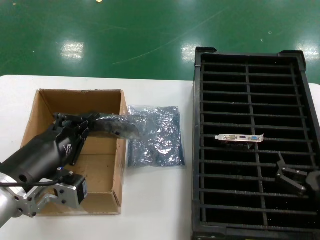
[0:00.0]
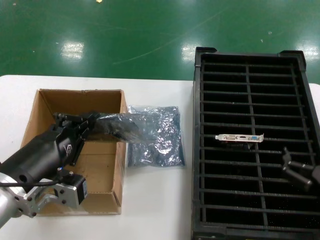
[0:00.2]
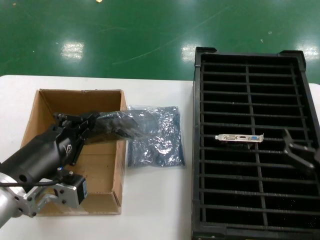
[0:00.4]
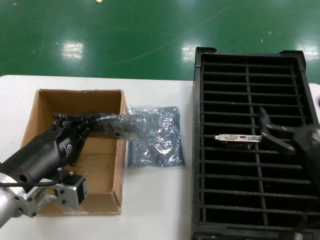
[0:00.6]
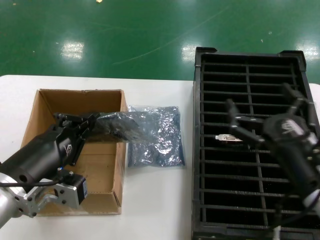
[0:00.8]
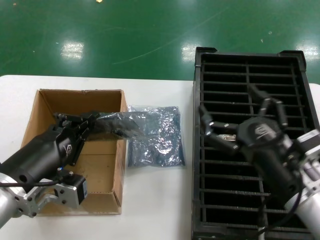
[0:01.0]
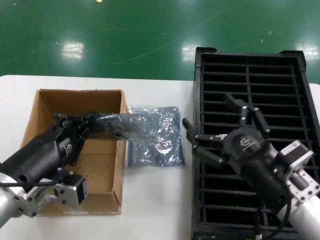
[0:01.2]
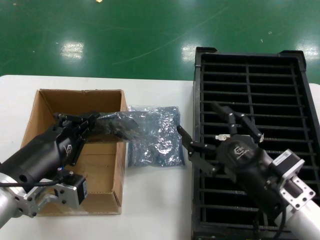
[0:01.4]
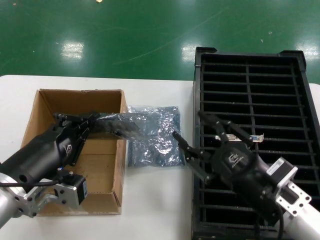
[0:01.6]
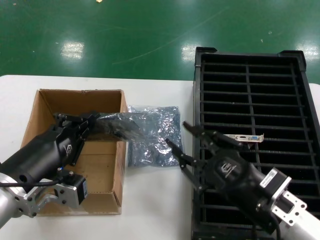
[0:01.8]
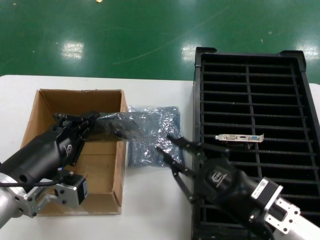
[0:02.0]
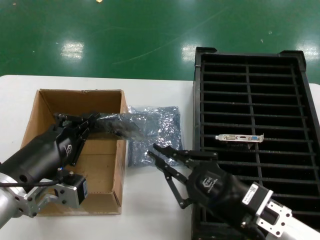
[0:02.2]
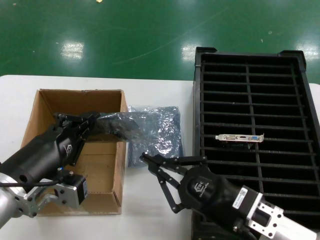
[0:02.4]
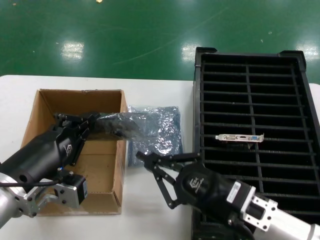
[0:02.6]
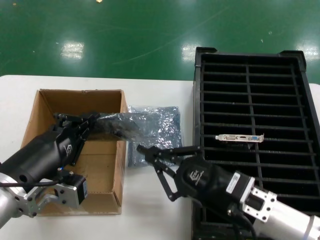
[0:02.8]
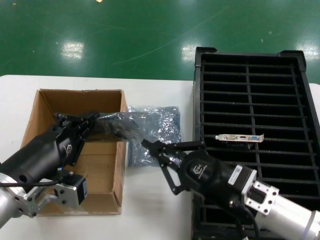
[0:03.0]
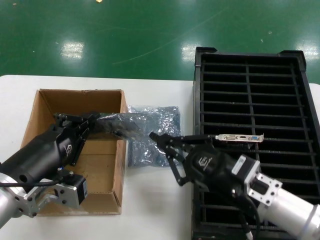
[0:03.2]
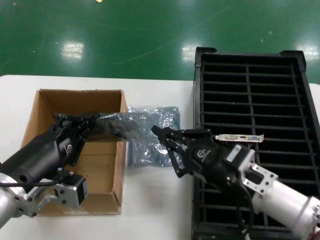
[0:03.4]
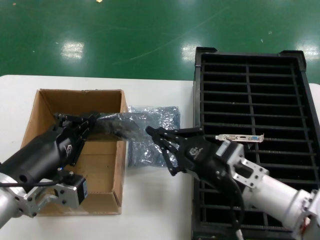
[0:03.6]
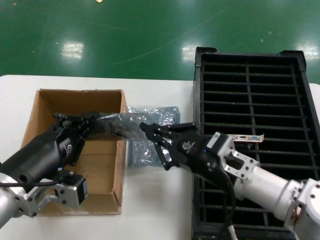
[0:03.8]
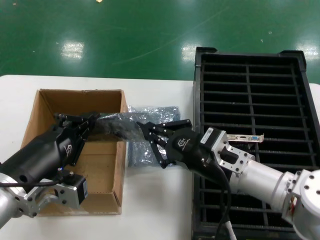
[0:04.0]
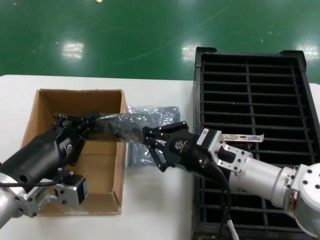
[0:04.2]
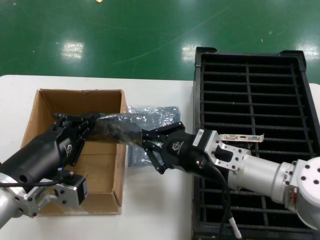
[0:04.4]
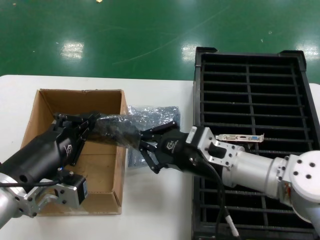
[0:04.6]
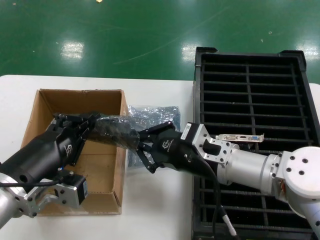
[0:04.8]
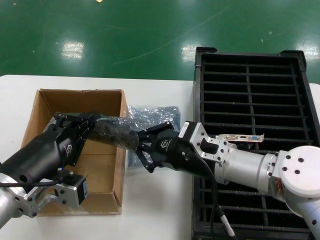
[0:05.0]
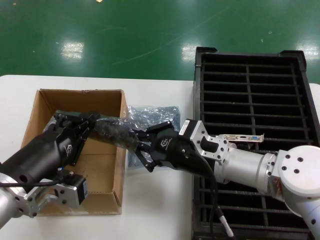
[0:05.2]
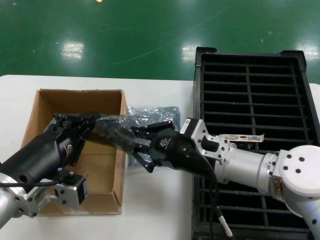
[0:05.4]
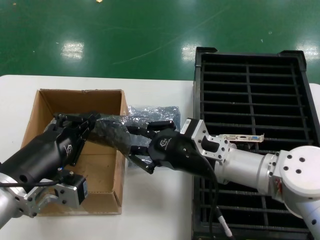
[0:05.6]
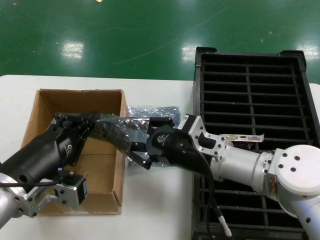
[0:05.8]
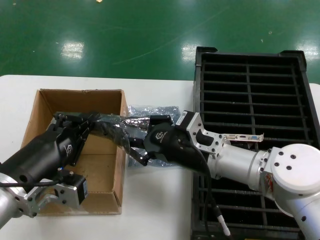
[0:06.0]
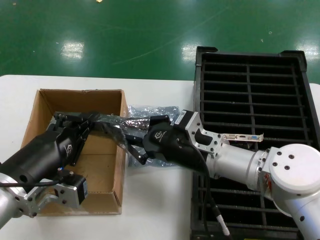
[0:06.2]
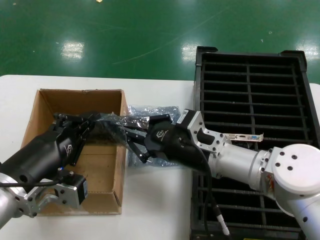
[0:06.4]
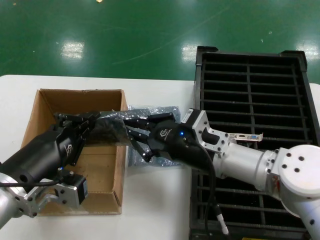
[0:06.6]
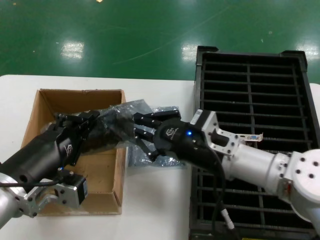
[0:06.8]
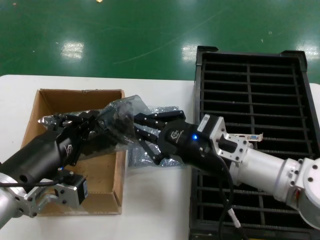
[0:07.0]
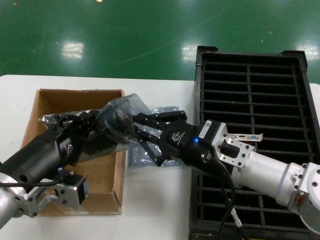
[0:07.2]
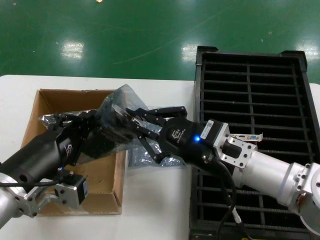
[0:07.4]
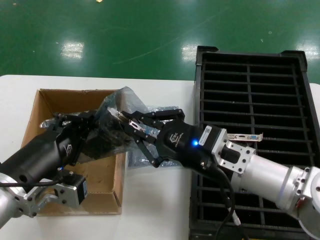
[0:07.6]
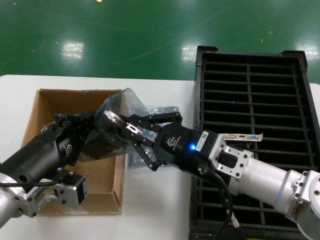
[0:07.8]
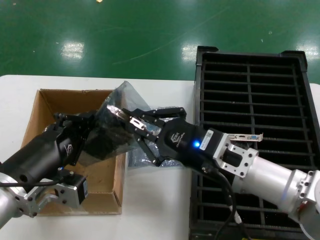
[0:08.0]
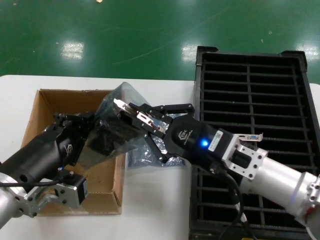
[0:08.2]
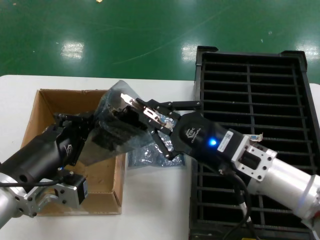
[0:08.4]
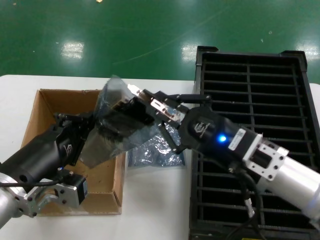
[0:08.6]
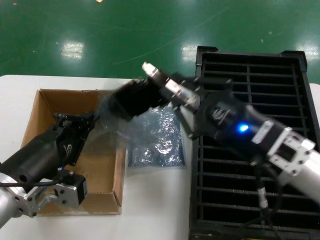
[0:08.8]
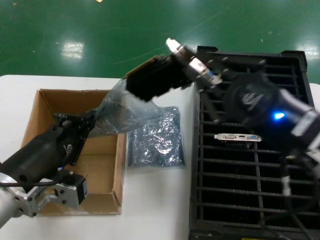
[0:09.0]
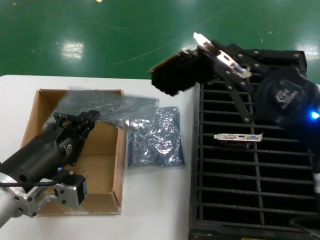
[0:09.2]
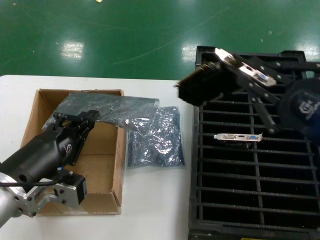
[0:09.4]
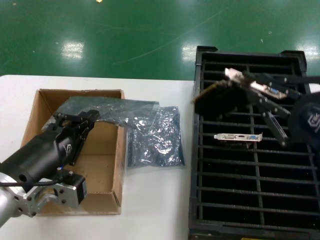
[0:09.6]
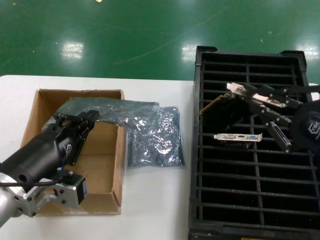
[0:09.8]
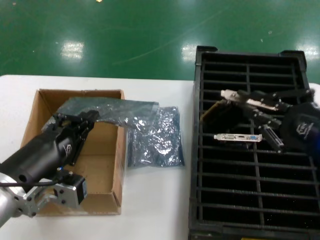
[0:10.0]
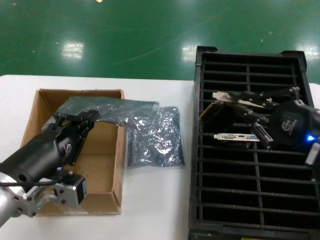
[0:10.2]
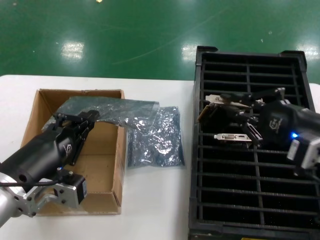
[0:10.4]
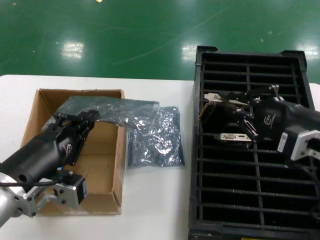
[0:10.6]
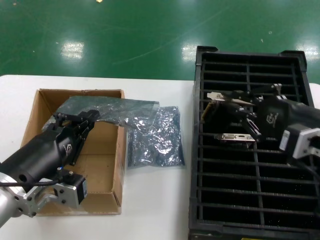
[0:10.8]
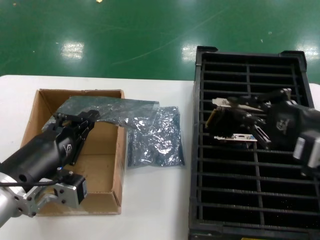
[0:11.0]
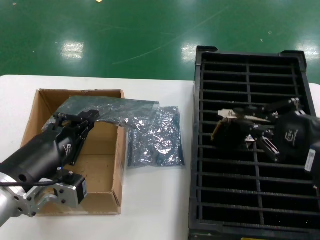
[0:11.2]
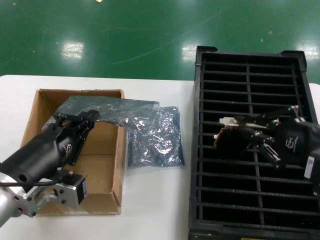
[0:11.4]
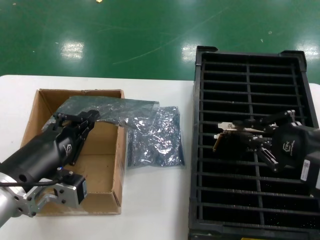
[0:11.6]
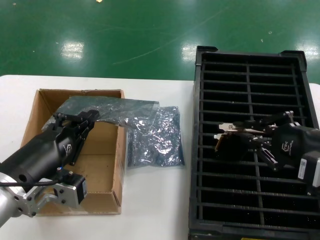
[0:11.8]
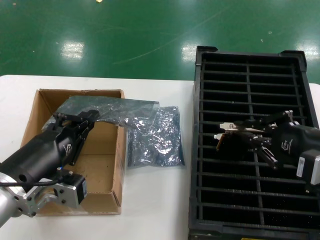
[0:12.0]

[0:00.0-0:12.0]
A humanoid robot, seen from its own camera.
Task of the whole recording: take out graphics card from box remove packaging put into black container.
Step, 0:00.2 to 0:09.0: Take out the hard disk of the bag.
0:00.0 to 0:01.6: The right hand goes roughly 5 cm to the left.
0:01.6 to 0:03.0: The hands move only a little.
0:03.0 to 0:04.4: The right hand moves forward, about 5 cm.
0:04.4 to 0:06.0: The hands make only small movements.
0:06.0 to 0:07.6: The right hand shifts by some 5 cm.
0:07.6 to 0:09.0: The right hand goes roughly 10 cm to the right, upward and backward.
0:09.0 to 0:10.4: The right hand heads to the right, covering approximately 5 cm.
0:10.4 to 0:12.0: The hands stay close to where they were, moving slightly.

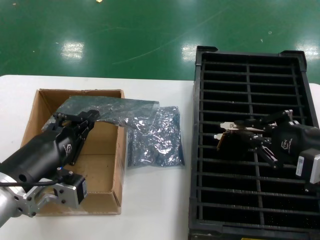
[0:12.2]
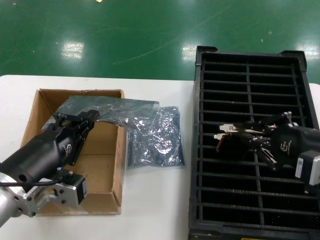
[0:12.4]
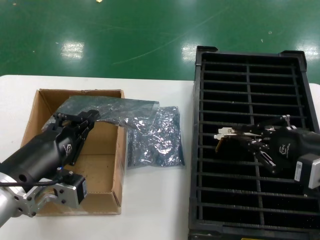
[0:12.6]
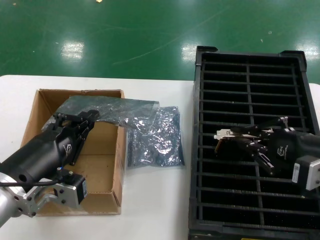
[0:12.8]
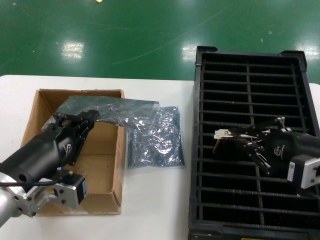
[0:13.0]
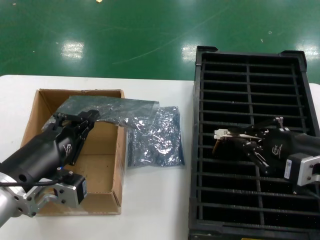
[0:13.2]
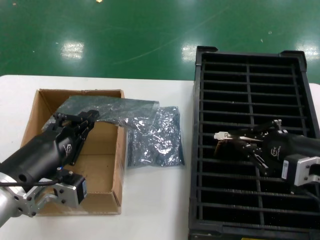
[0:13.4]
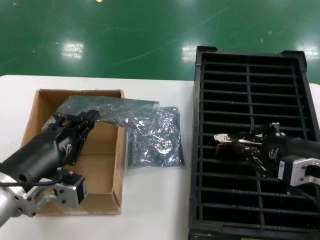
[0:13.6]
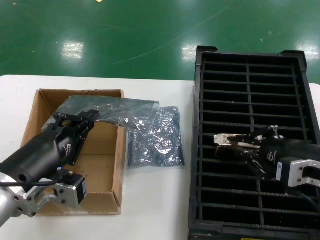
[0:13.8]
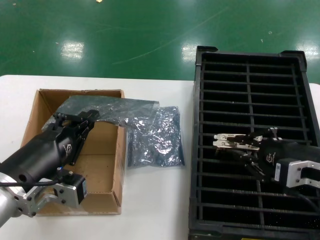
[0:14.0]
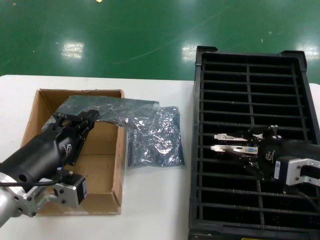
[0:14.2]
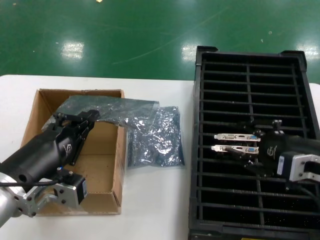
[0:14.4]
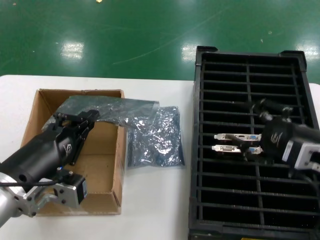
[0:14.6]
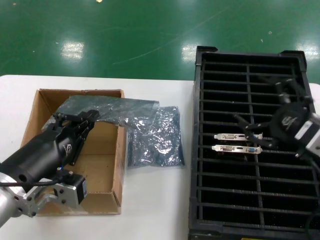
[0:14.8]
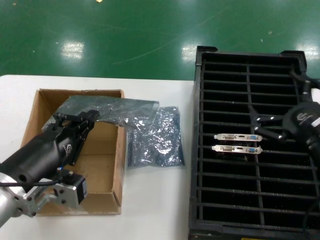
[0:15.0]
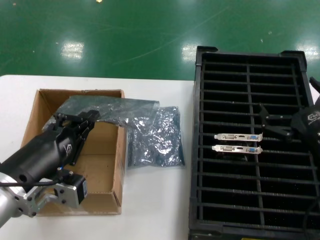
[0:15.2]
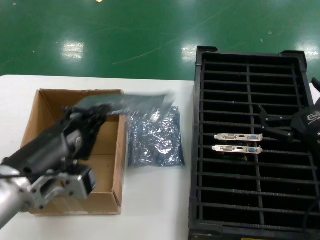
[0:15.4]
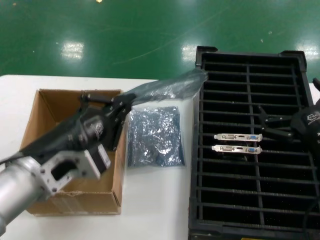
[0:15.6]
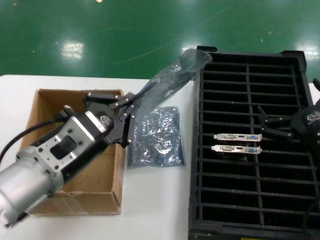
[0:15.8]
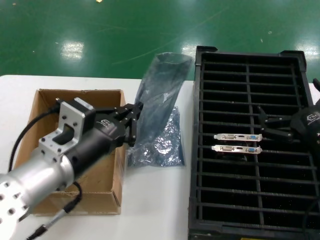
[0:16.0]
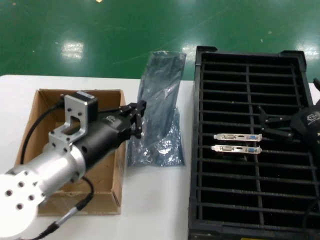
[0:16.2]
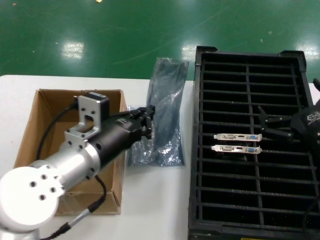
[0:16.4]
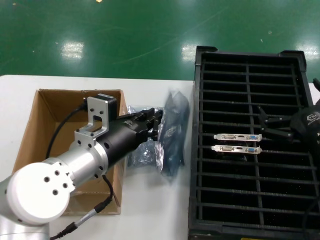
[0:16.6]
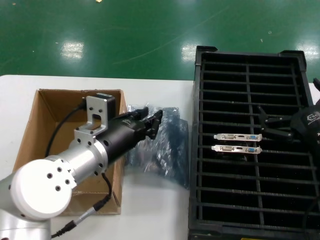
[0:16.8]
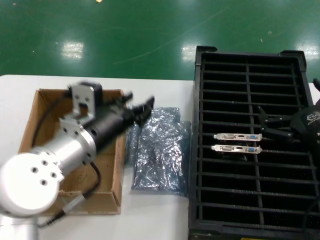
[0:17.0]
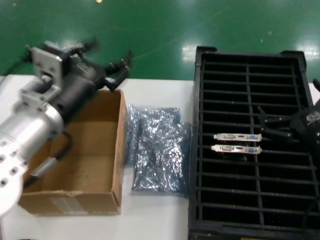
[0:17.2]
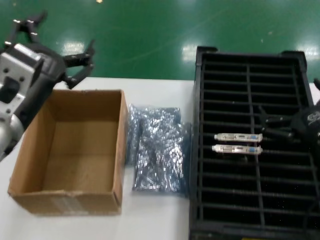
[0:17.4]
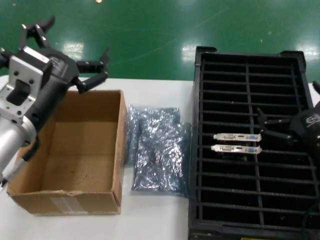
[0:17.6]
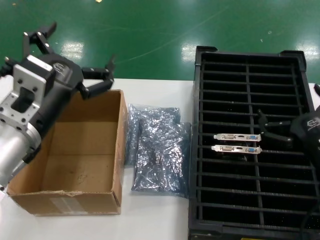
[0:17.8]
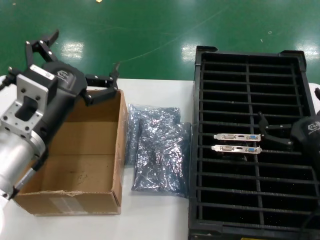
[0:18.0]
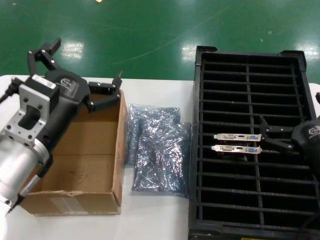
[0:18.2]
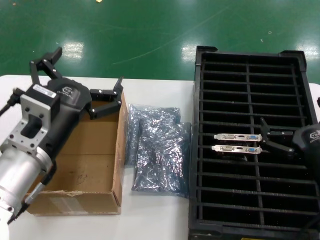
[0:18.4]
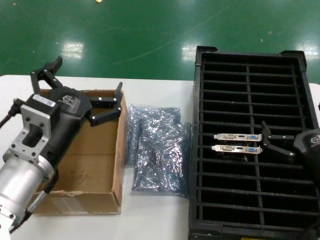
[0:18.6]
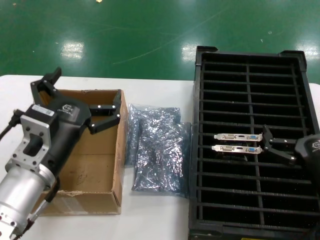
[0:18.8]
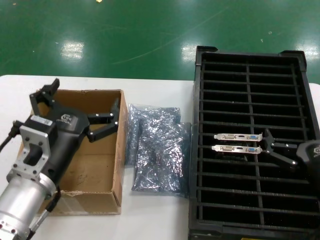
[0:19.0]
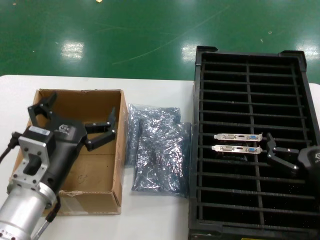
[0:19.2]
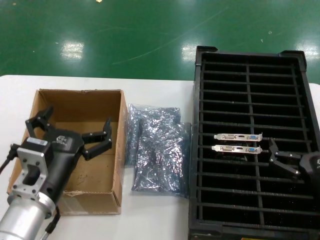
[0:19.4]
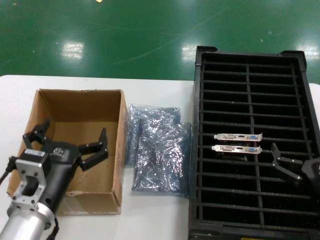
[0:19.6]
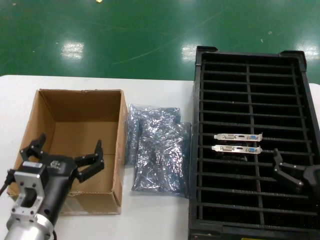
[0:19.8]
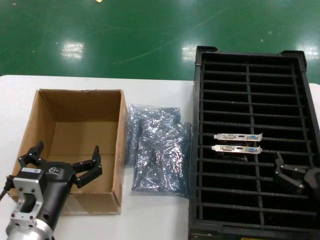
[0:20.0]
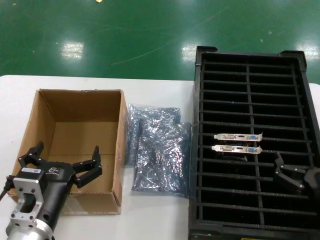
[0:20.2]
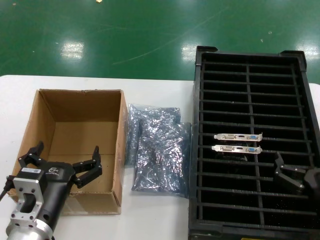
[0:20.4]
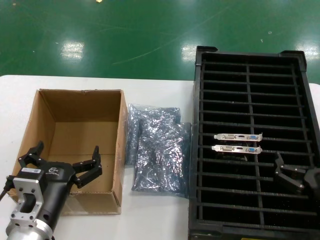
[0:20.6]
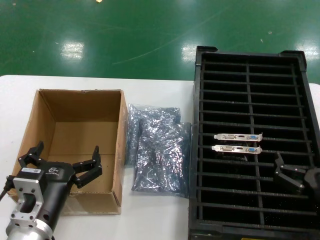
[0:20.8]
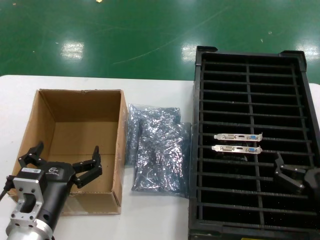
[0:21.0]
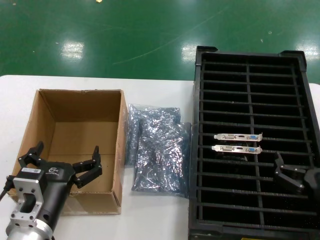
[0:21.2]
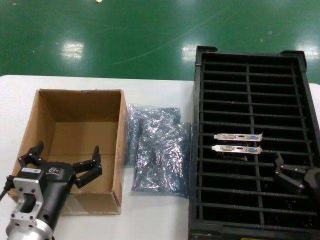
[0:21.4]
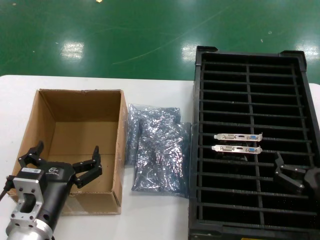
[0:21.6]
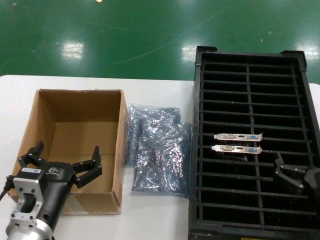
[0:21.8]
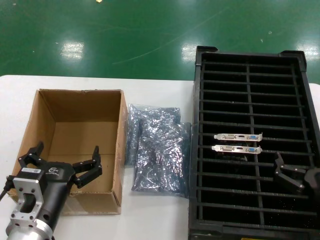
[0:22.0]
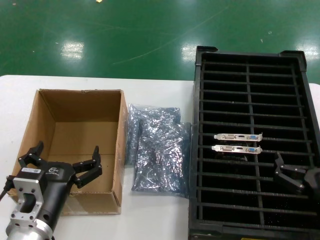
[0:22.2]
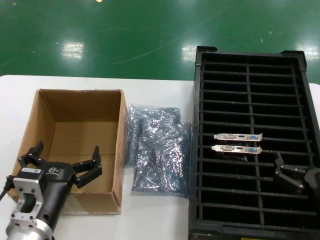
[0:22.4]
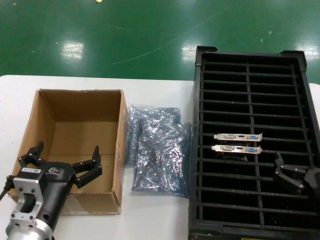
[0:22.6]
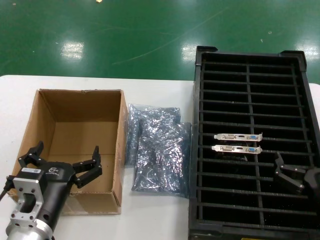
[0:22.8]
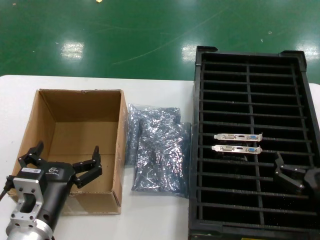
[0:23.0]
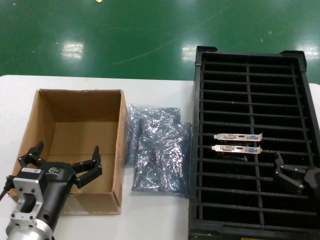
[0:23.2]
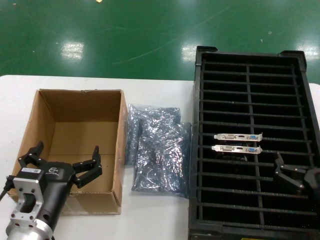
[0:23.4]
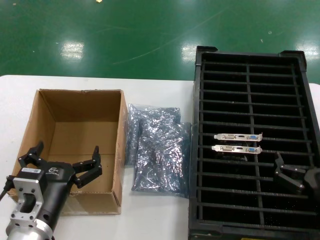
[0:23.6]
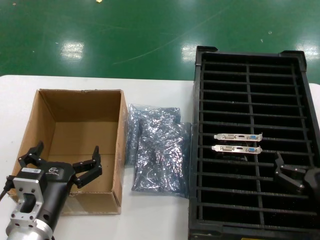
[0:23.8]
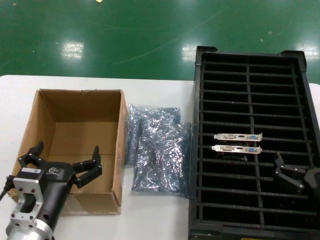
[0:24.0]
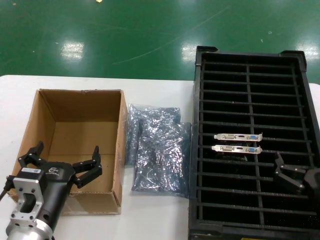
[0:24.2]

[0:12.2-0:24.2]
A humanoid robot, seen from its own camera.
Task of the whole recording: take out graphics card from box remove packaging put into black container.
Step, 0:12.2 to 0:14.6: Place the hard disk in the hard disk enclosure.
Step, 0:14.8 to 0:19.4: Place the down the bag.
0:12.2 to 0:13.8: The hands move only a little.
0:15.2 to 0:16.6: The left hand shifts approximately 15 cm forward and to the right.
0:16.6 to 0:18.2: The left hand travels backward and to the left by some 10 cm.
0:18.2 to 0:19.8: The left hand is displaced downward by some 15 cm; the right hand shifts roughly 5 cm downward.
0:19.8 to 0:24.2: Both hands stay put.
